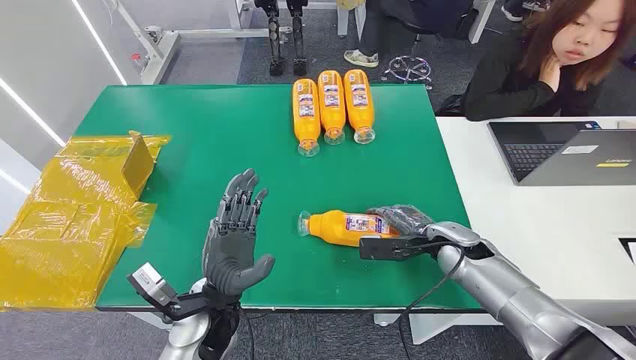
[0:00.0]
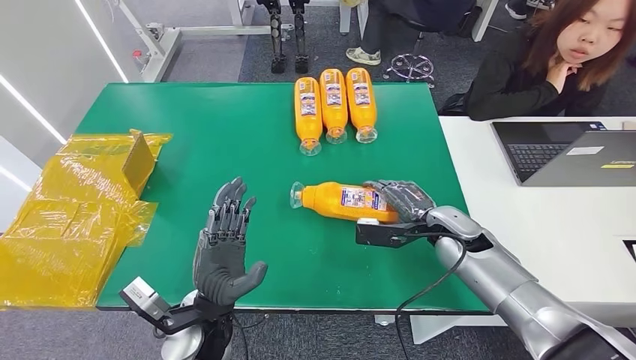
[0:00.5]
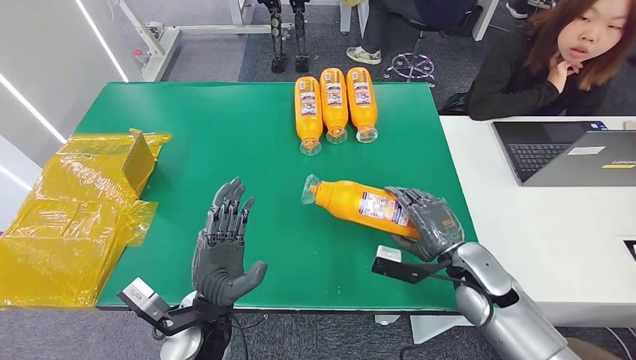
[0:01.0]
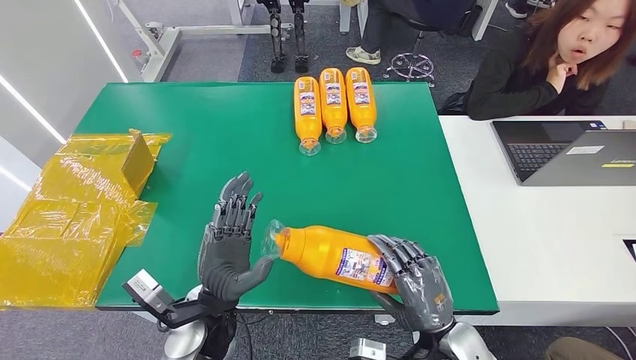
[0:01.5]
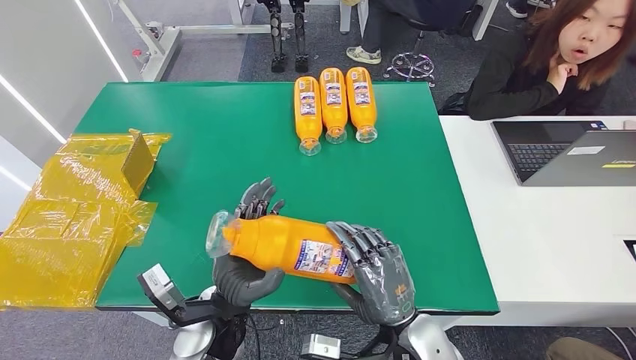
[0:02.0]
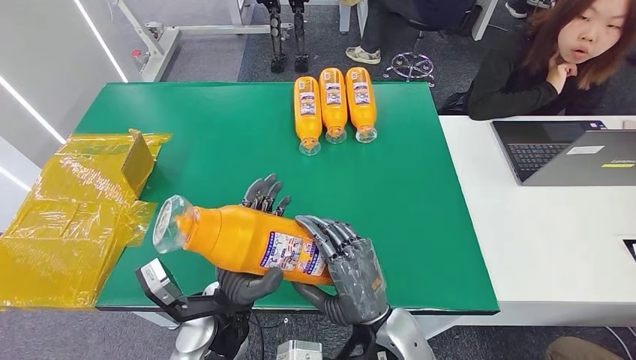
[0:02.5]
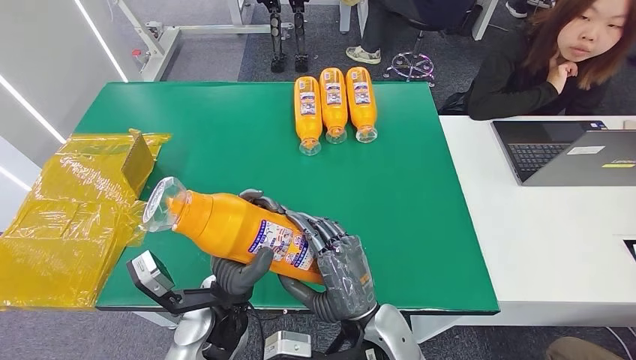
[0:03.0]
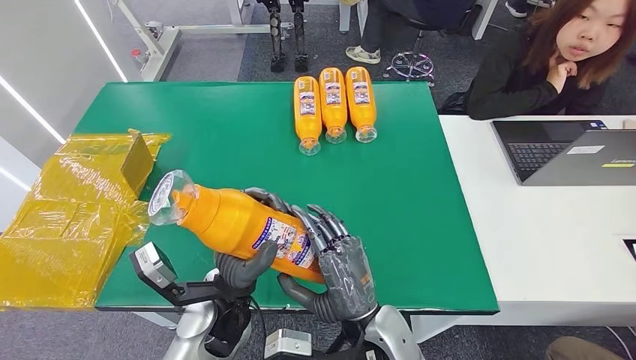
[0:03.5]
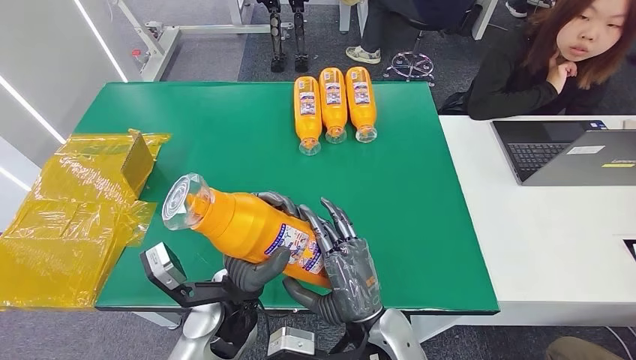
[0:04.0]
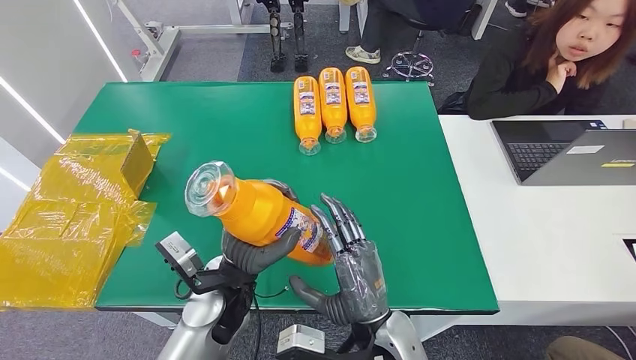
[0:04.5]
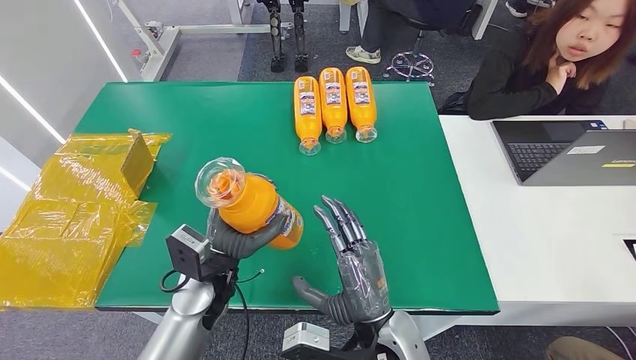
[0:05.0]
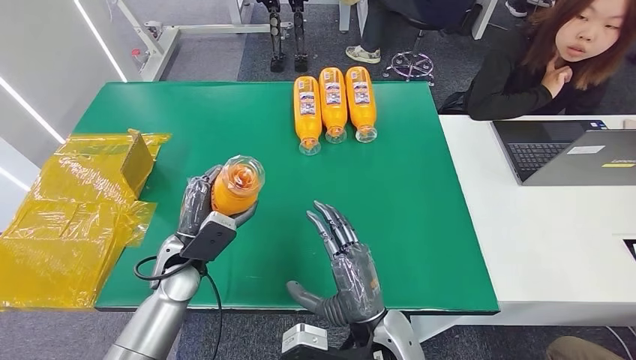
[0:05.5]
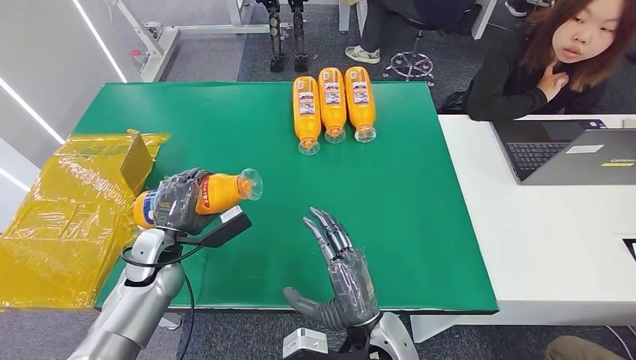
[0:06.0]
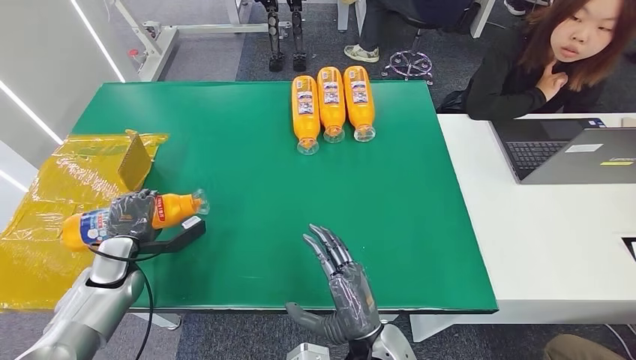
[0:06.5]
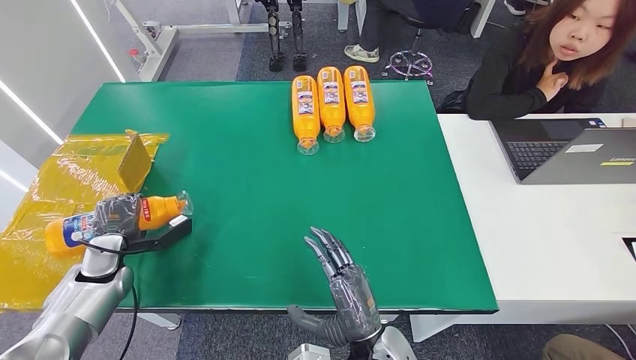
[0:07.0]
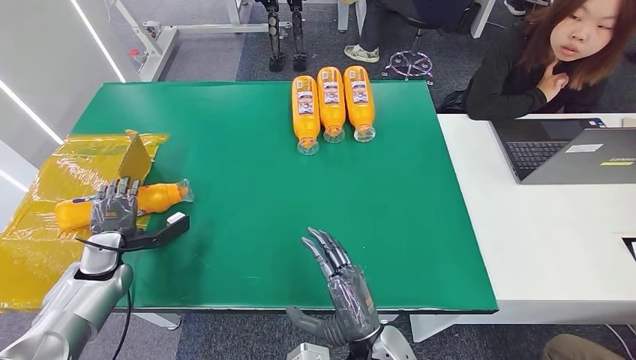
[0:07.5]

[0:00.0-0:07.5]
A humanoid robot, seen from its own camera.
Step, 0:00.0 to 0:01.5: Pick up the bottle from the table.
Step, 0:02.5 to 0:07.5: Turn the bottle to the front side.
0:02.0 to 0:04.0: The right hand is displaced to the left by about 5 cm.
0:04.0 to 0:05.5: The left hand heads to the left and forward, covering approximately 15 cm.
0:05.5 to 0:07.5: The left hand travels to the left by approximately 20 cm.

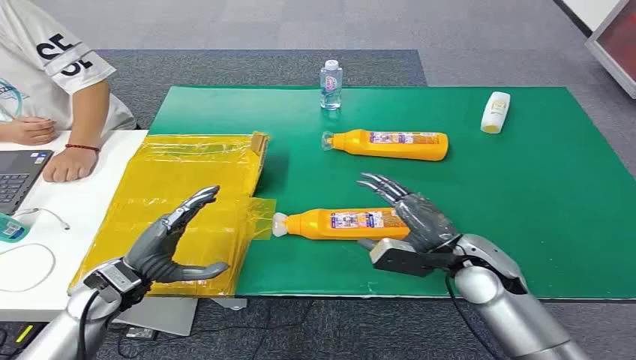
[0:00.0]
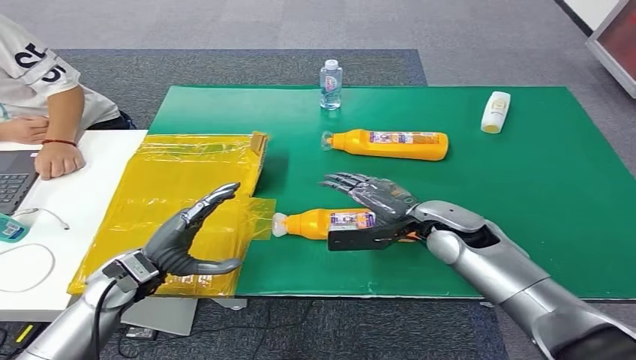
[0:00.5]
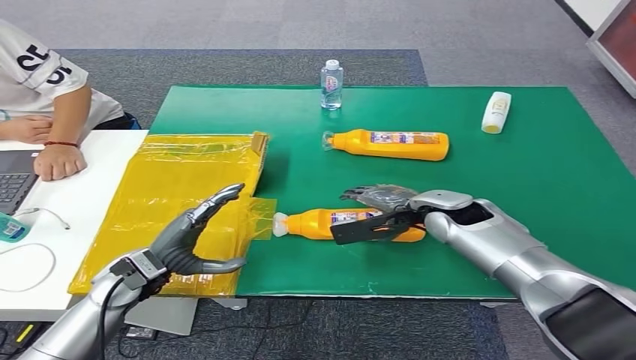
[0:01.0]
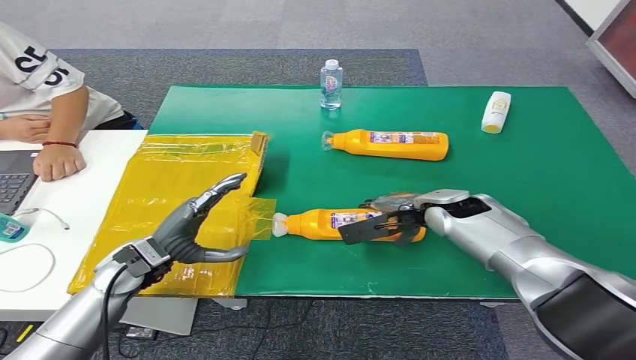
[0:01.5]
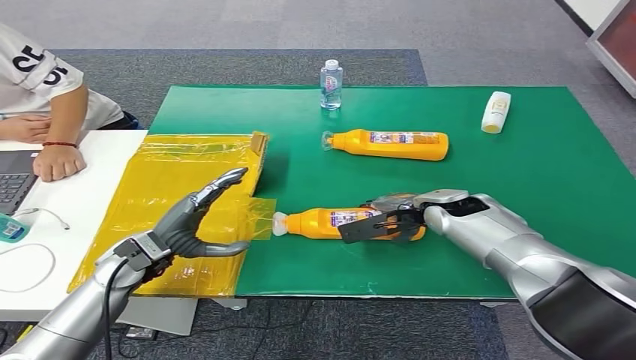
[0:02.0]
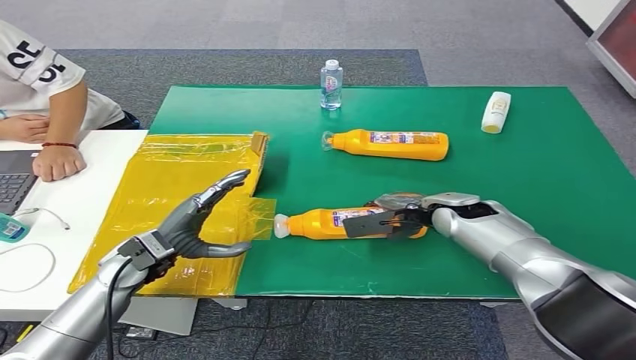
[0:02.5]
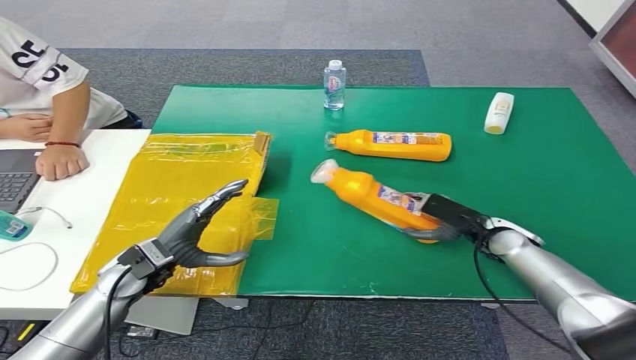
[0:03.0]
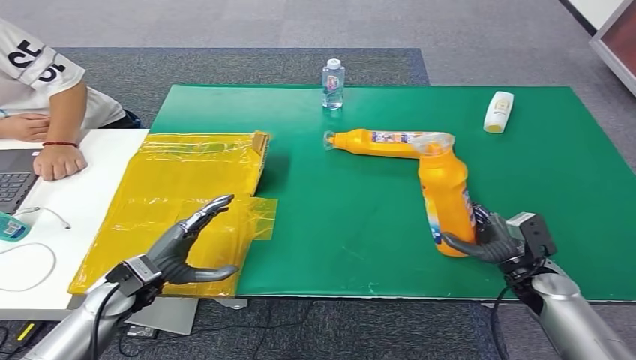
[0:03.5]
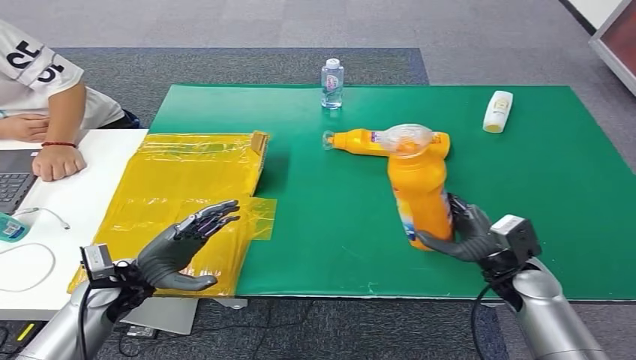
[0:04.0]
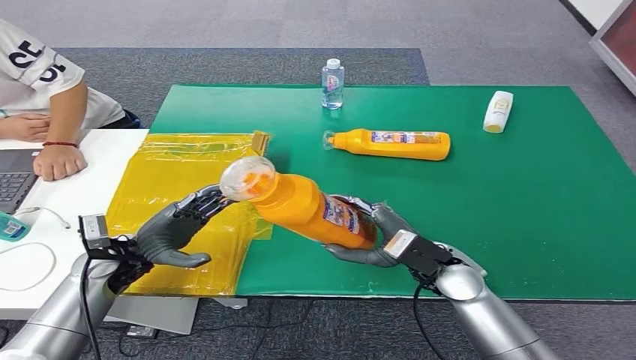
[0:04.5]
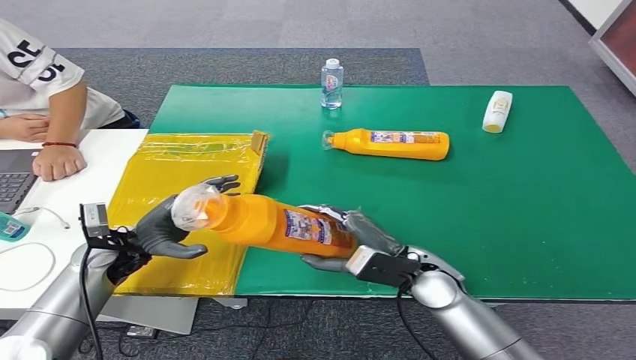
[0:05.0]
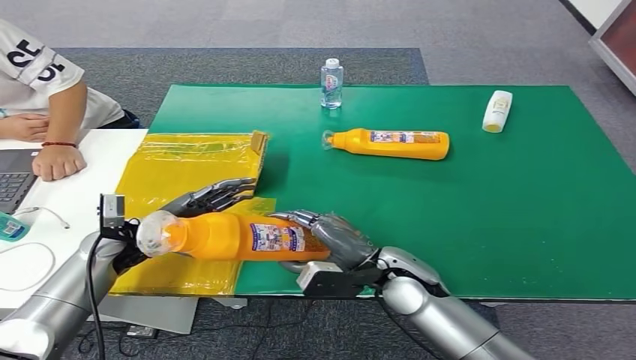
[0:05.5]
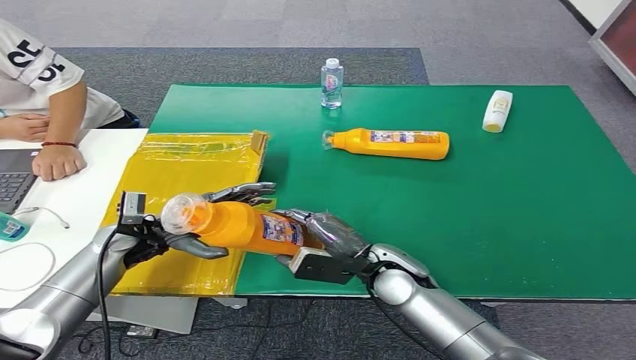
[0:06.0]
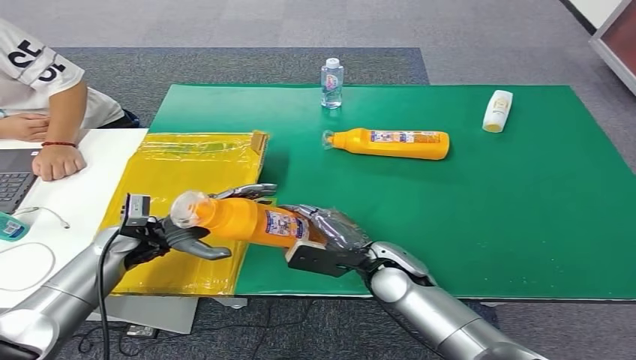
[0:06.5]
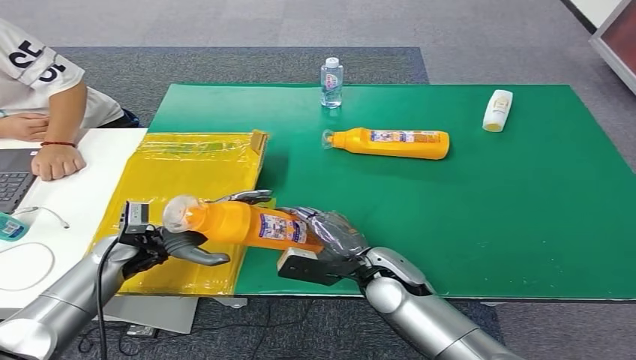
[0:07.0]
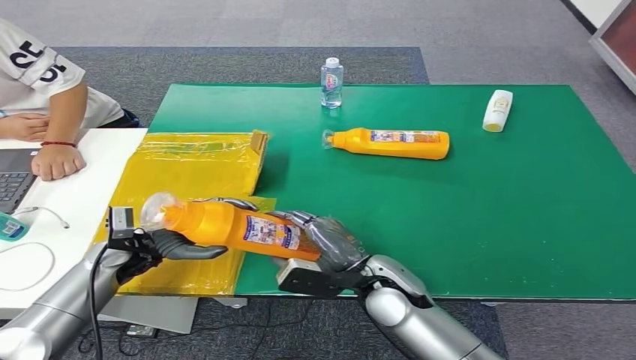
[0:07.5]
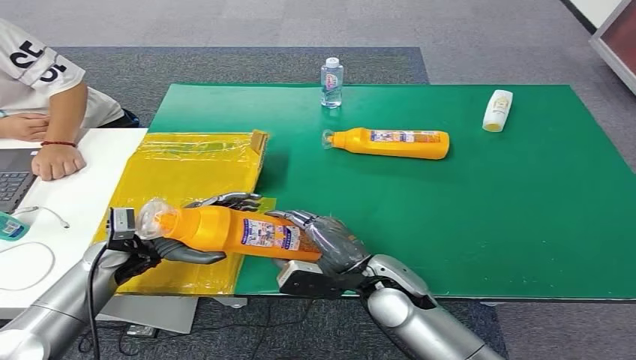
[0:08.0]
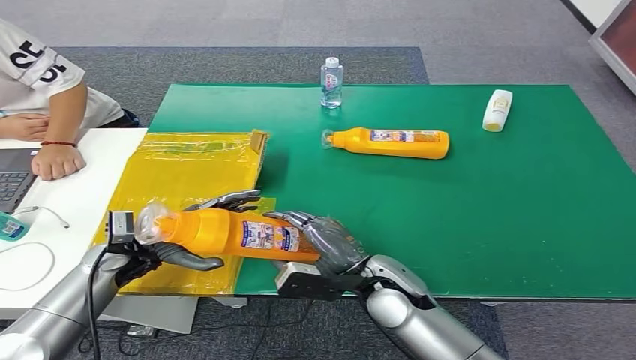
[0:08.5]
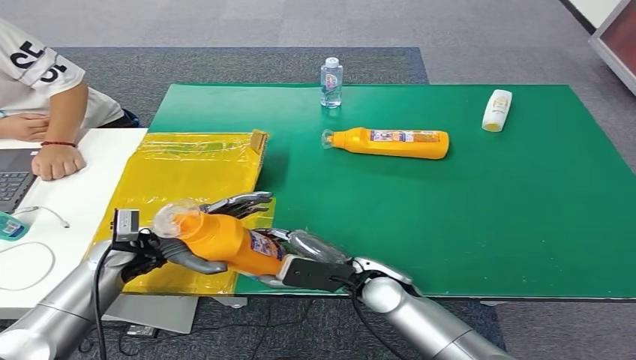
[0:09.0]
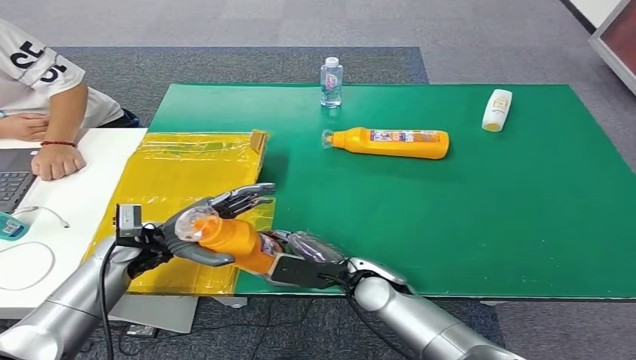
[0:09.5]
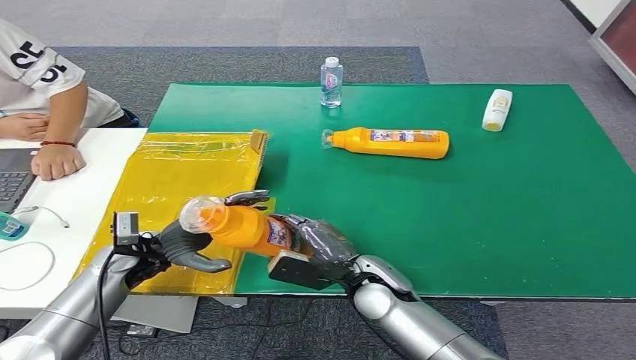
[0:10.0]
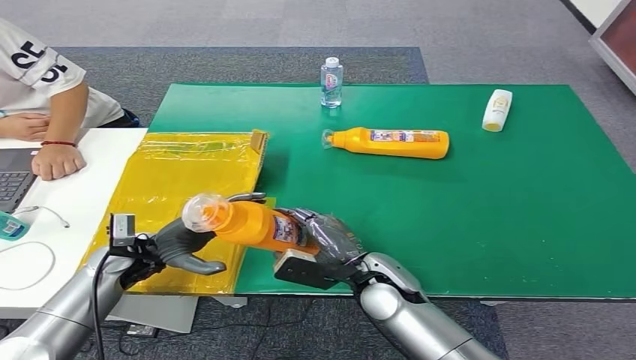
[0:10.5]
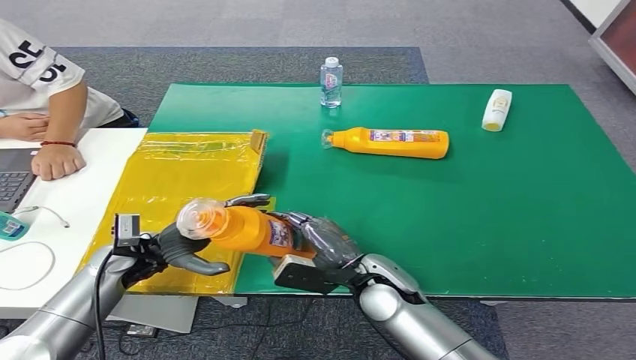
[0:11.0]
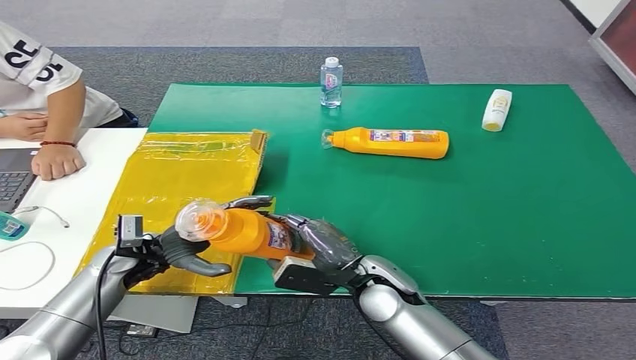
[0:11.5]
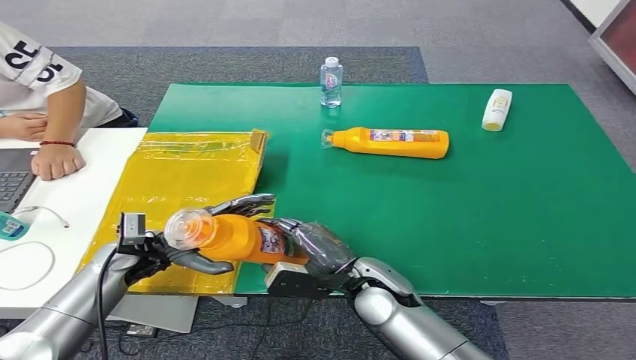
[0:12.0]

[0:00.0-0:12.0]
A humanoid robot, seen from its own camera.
Step, 0:00.0 to 0:04.5: Pick up the bottle from the table.
0:02.0 to 0:04.0: The left hand changes place by approximately 5 cm; the right hand travels backward, to the right and downward by about 15 cm.
0:04.0 to 0:06.0: The right hand shifts some 20 cm to the left. The left hand moves forward, roughly 10 cm.
0:06.0 to 0:08.0: The hands stay close to where they were, moving slightly.
0:10.0 to 0:12.0: The hands move only a little.
